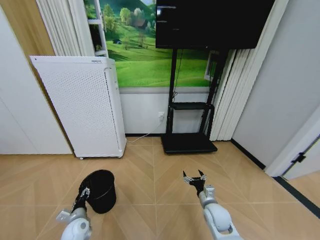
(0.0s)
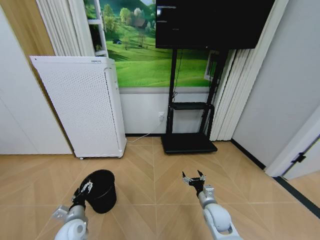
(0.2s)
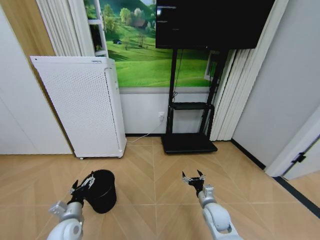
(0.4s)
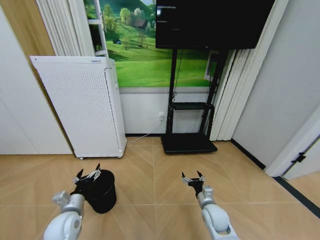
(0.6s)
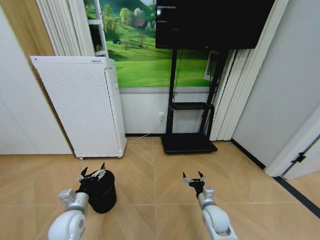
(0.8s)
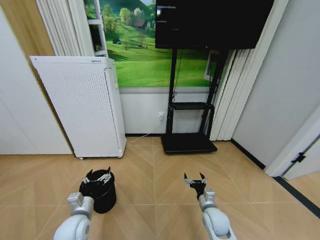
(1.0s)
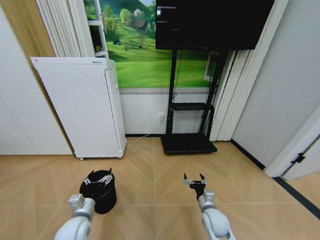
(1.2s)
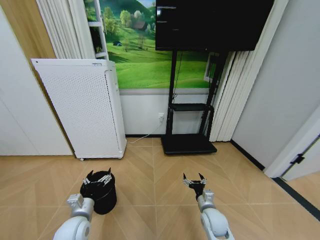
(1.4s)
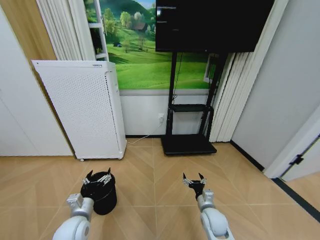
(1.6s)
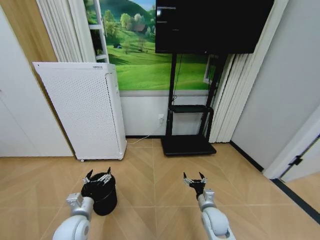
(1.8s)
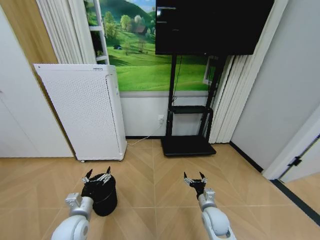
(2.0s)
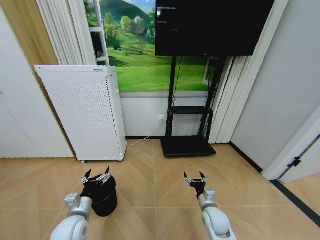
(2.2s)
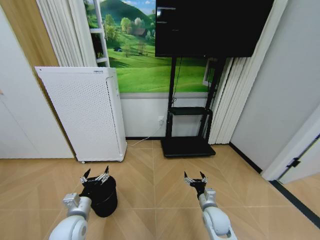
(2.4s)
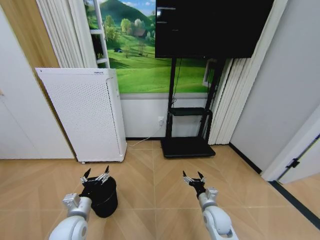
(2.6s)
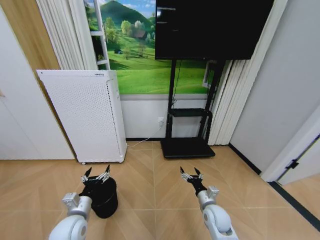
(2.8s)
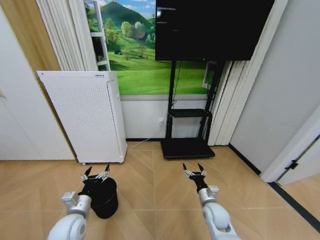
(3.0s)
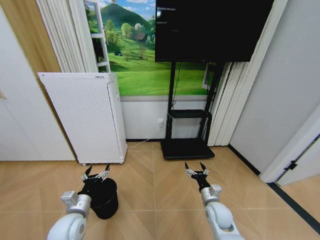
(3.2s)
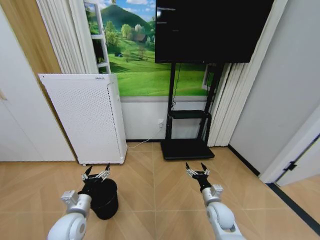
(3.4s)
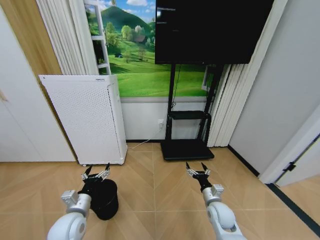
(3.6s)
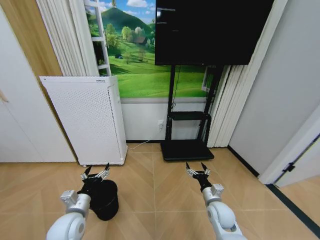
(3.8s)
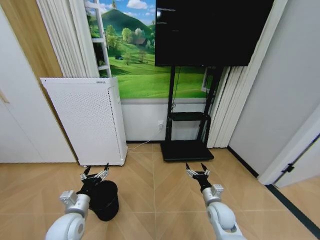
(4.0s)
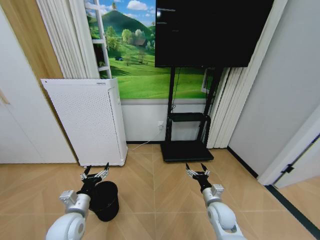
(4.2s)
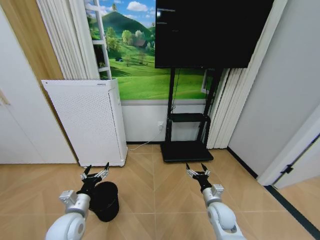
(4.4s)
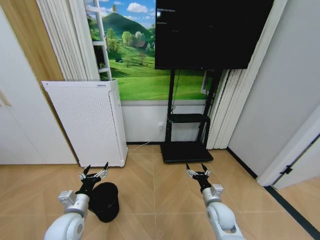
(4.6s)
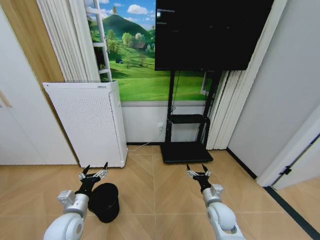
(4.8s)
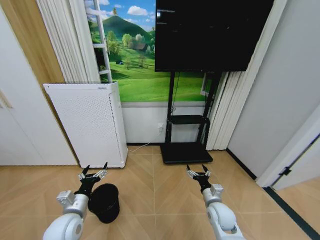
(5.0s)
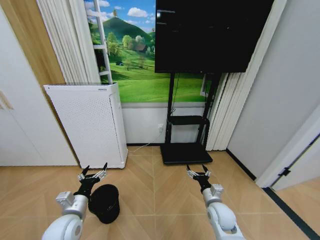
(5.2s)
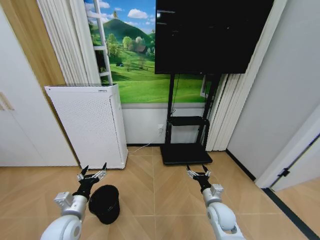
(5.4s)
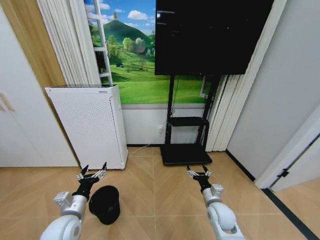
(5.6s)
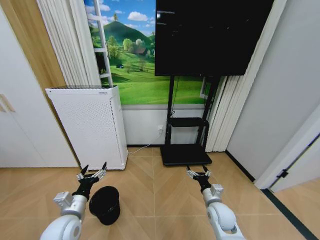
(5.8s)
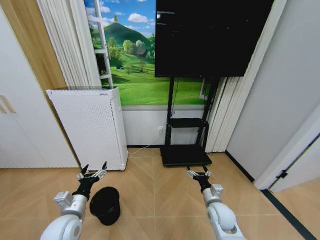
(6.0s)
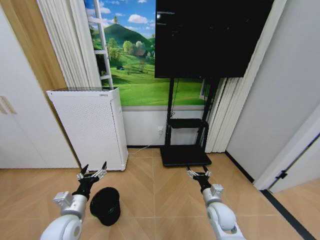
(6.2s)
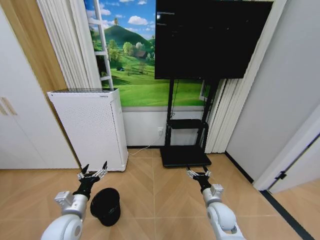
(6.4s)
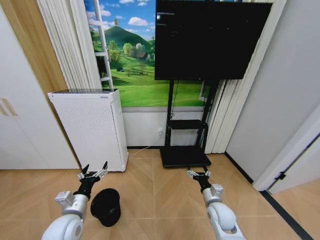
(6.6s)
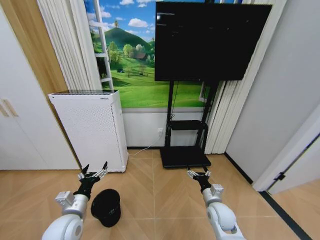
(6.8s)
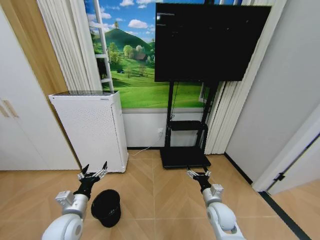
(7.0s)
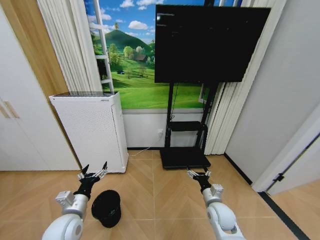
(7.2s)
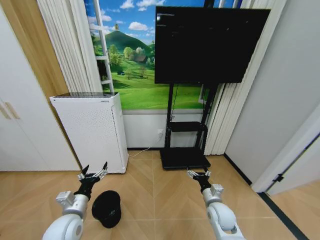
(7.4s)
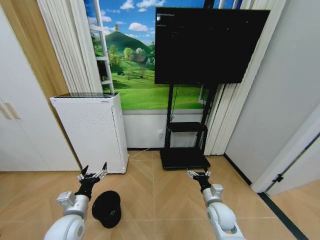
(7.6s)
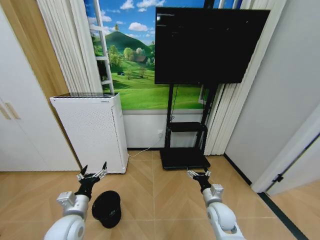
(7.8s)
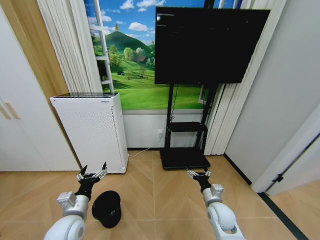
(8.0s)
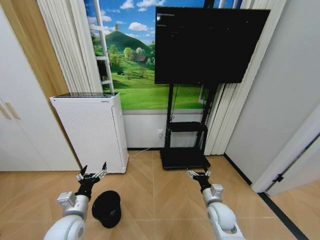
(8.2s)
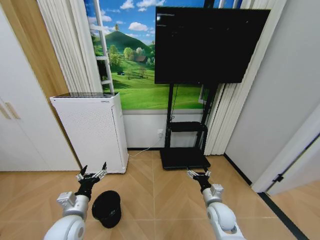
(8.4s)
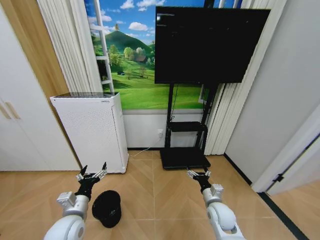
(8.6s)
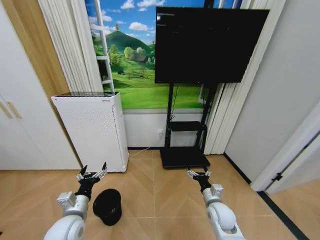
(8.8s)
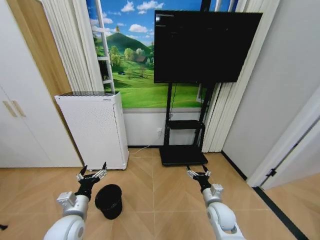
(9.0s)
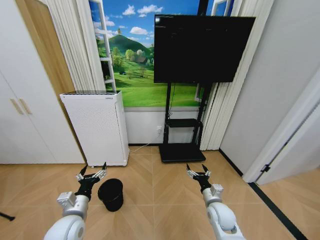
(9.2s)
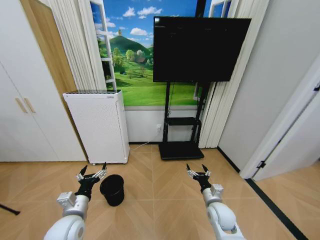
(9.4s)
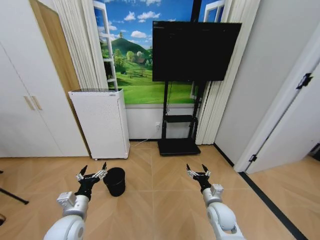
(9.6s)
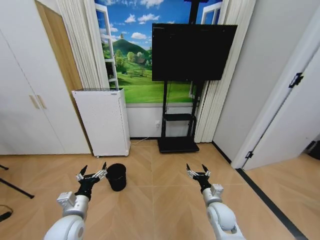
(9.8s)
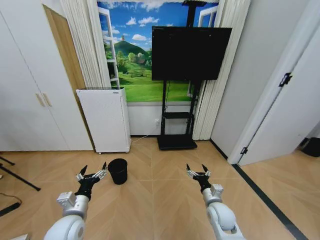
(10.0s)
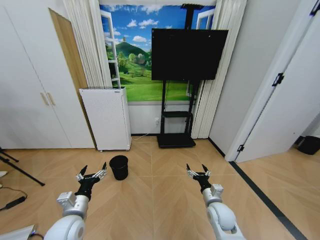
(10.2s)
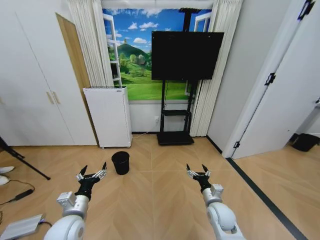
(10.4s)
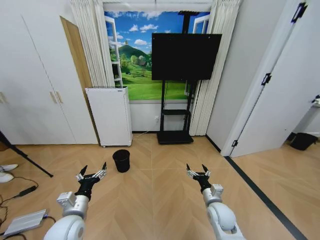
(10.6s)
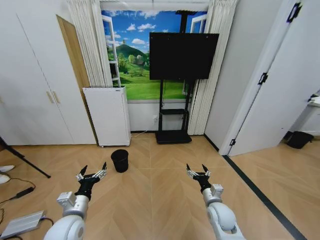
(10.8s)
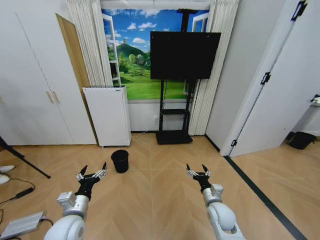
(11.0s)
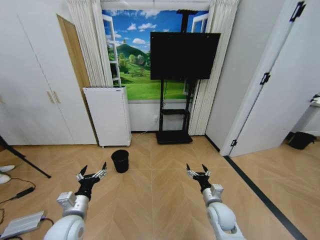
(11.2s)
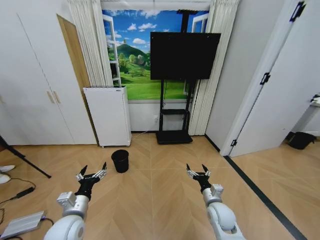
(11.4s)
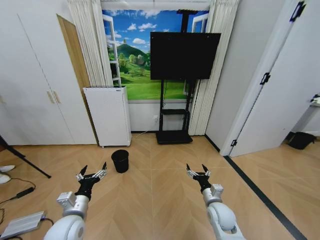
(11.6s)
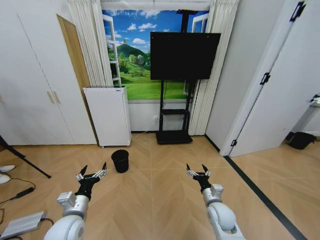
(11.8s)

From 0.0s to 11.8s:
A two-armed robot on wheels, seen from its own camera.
Task of the whole recording: Pick up the trash bin and place the garbage on the floor into it.
From 0.0s to 1.4s: The left gripper is displaced upward and to the right by approximately 15 cm, and opens.
From 1.4s to 4.4s: There are only small adjustments of the grippers.
From 4.4s to 6.0s: Neither gripper changes place.
From 6.0s to 8.8s: Both grippers stay about where they are.
From 10.4s to 11.8s: Neither gripper changes place.

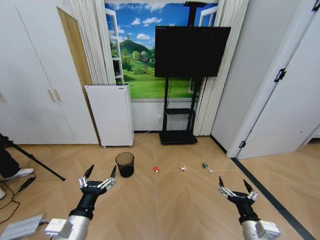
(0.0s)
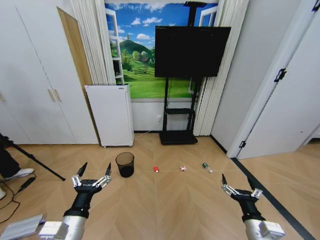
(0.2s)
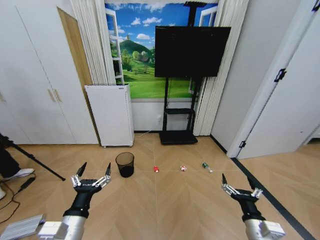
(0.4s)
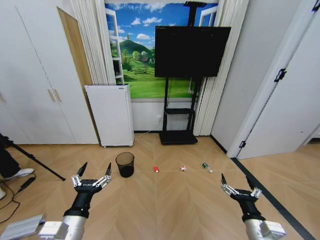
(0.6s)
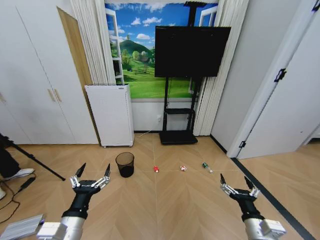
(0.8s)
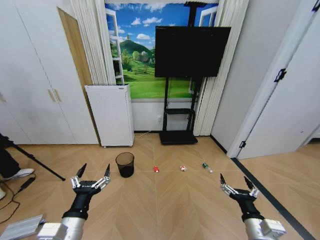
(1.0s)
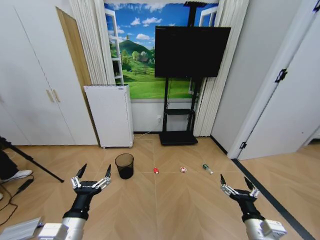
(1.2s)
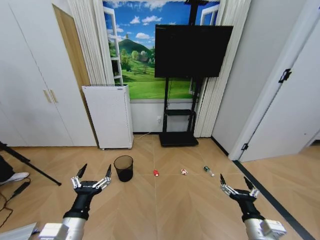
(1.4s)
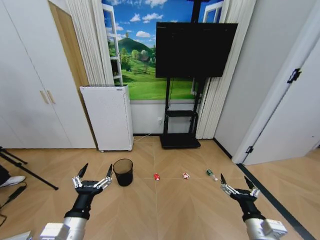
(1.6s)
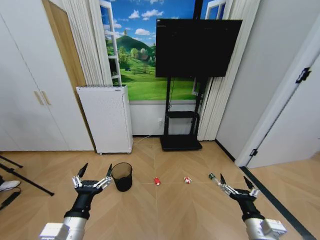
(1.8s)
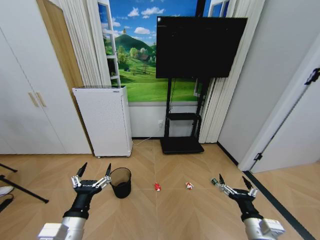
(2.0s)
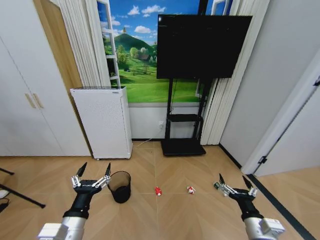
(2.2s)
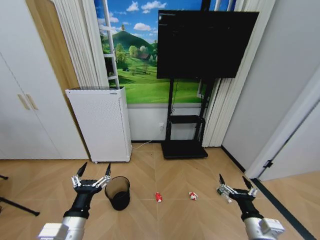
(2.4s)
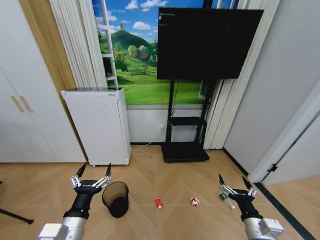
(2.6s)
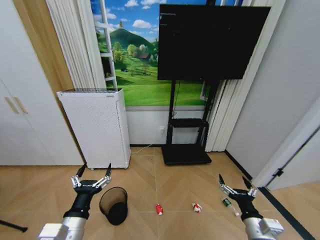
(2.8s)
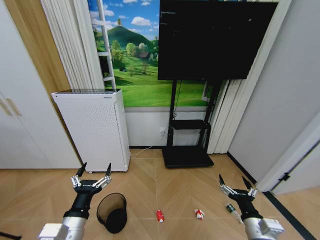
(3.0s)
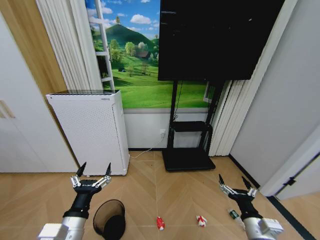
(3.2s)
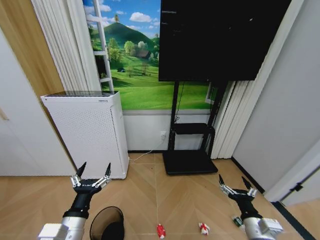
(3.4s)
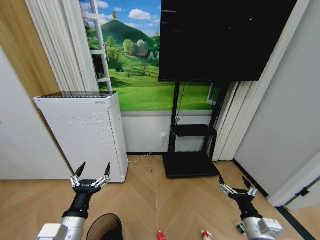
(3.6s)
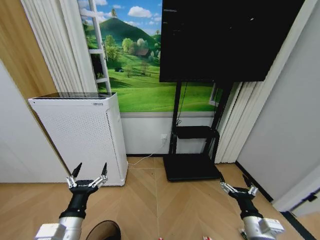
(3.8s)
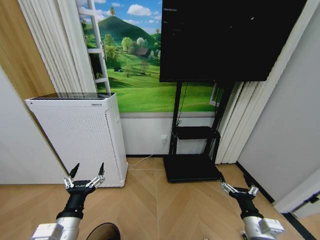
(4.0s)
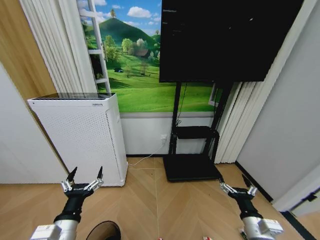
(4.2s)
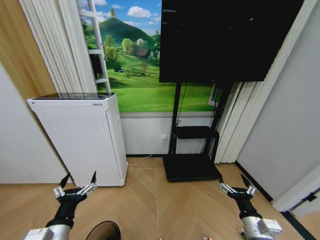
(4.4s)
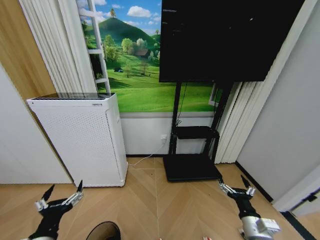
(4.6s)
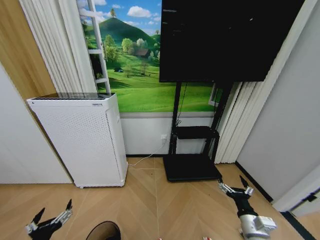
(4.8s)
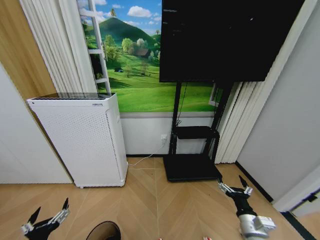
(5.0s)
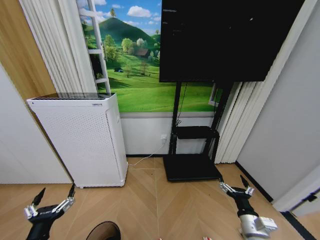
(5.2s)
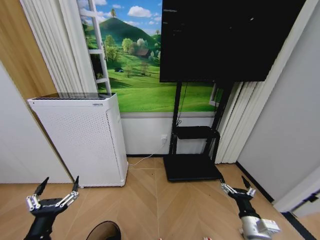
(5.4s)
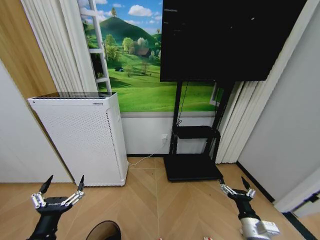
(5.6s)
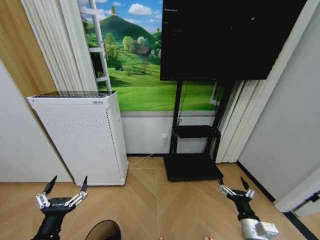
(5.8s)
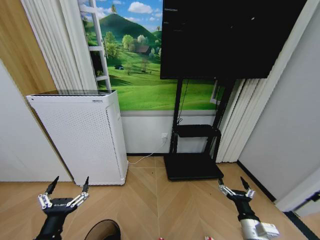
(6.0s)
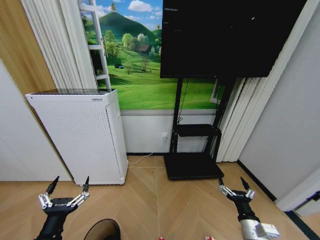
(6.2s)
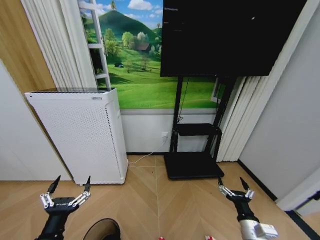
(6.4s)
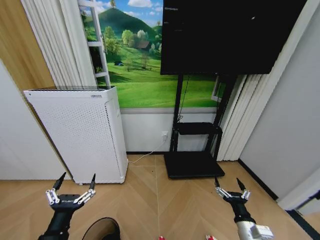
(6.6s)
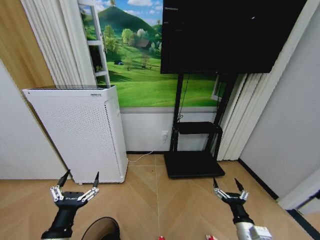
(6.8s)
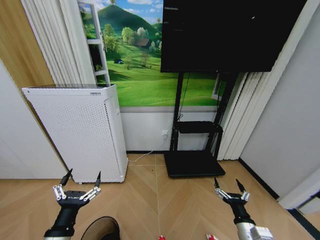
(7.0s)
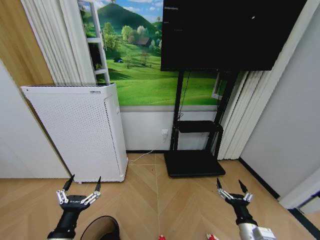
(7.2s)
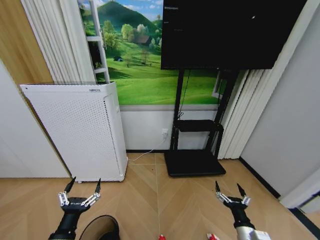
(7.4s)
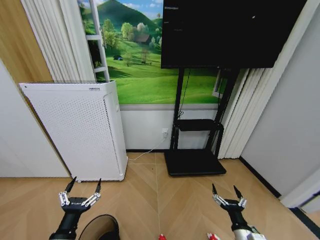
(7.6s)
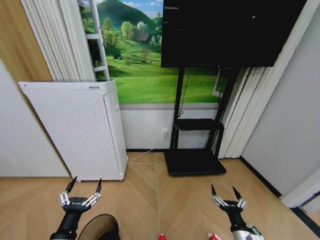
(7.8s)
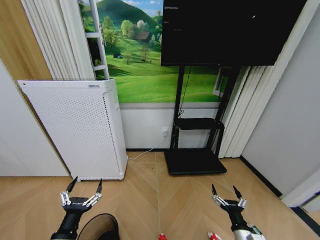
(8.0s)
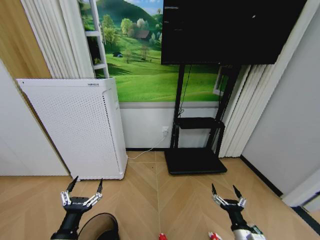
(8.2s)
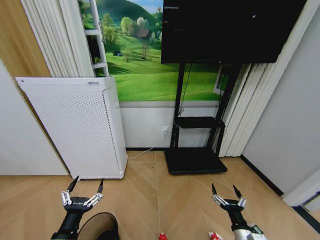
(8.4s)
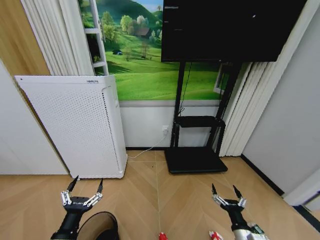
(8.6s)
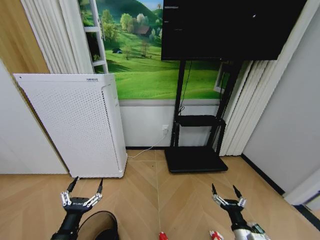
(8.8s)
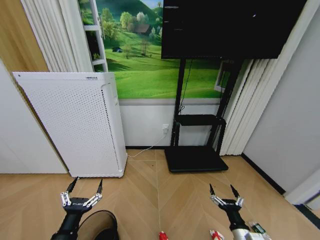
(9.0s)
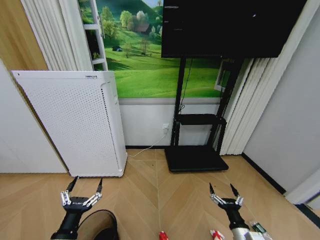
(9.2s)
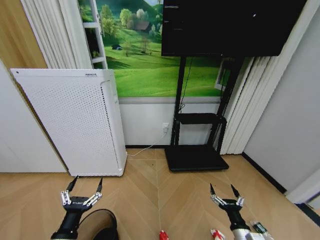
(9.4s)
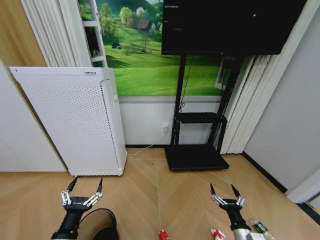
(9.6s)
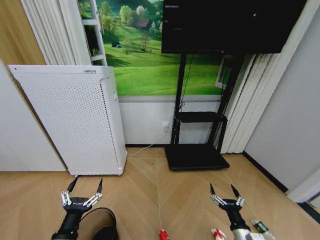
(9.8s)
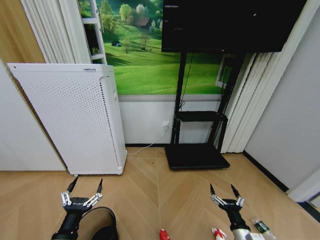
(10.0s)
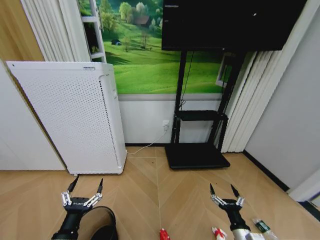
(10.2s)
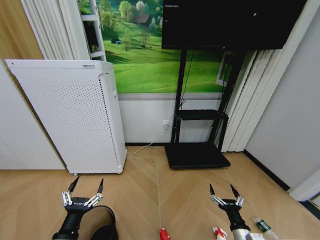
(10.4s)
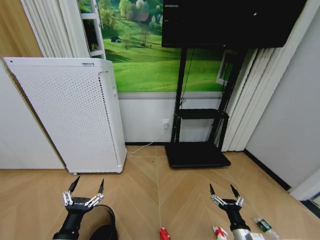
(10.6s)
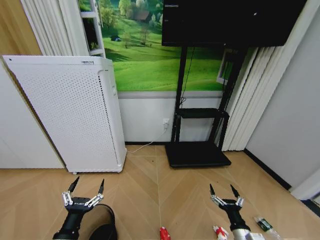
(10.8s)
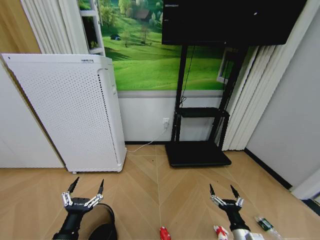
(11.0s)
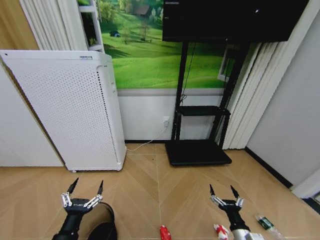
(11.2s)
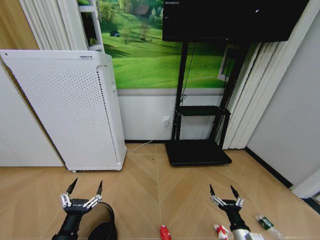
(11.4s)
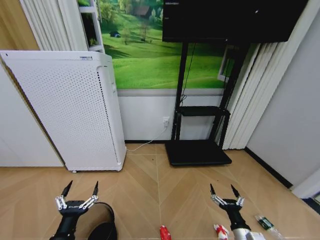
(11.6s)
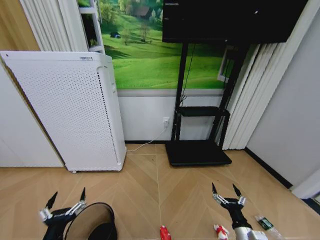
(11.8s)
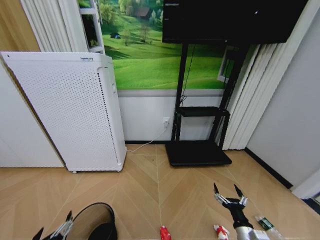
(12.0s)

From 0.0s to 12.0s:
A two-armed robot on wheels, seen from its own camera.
Task of the whole recording: Pick up the trash bin and place the garbage on the floor into it.
From 7.6s to 10.4s: Neither gripper changes place.
From 10.4s to 12.0s: The left gripper travels backward by roughly 5 cm.
